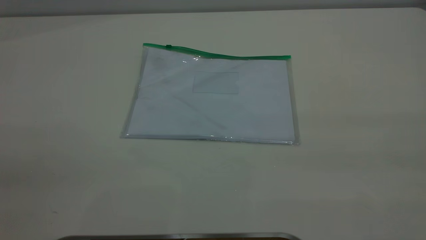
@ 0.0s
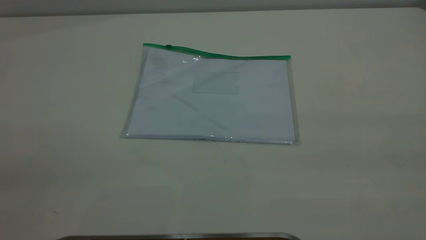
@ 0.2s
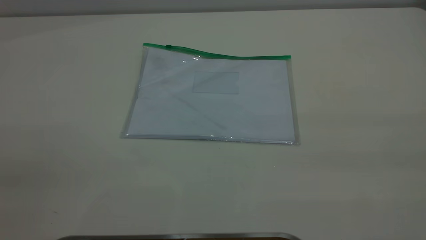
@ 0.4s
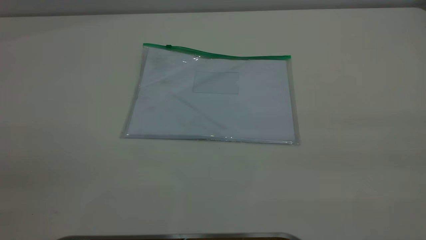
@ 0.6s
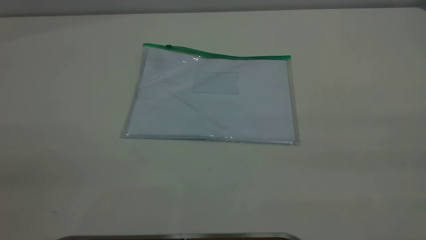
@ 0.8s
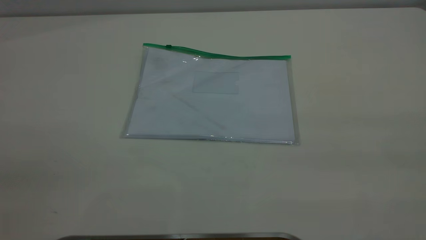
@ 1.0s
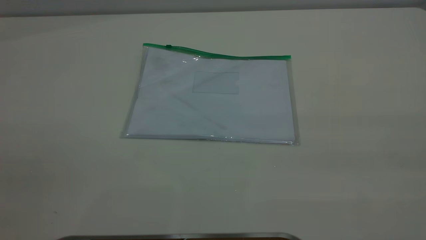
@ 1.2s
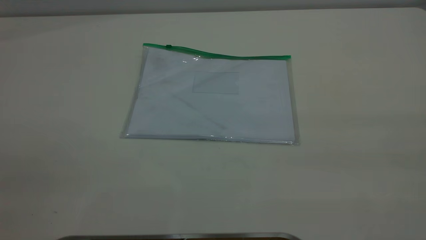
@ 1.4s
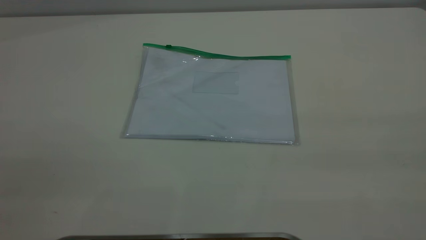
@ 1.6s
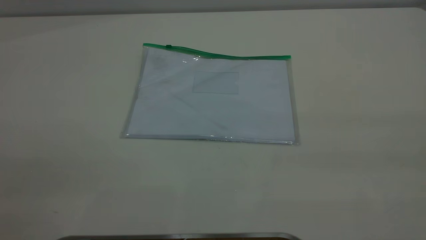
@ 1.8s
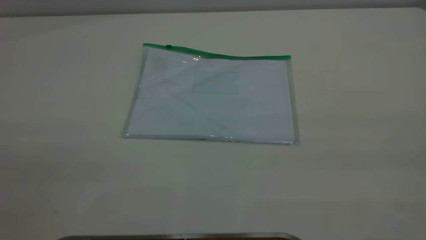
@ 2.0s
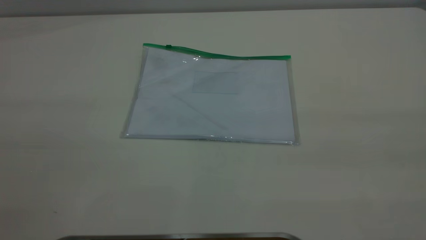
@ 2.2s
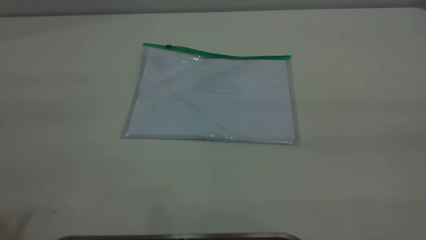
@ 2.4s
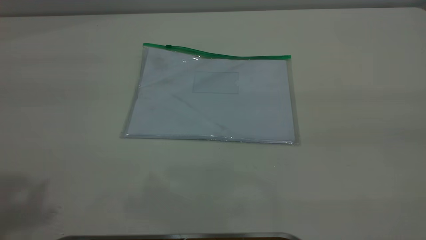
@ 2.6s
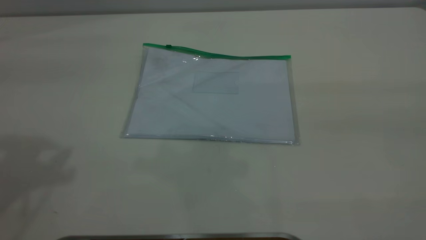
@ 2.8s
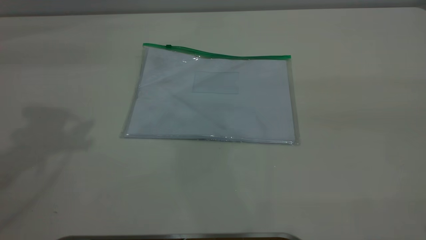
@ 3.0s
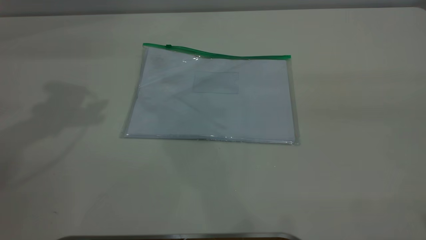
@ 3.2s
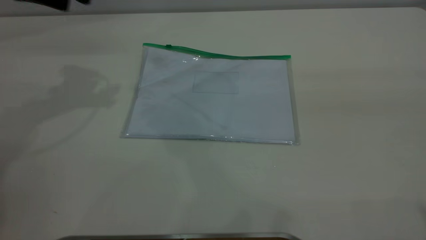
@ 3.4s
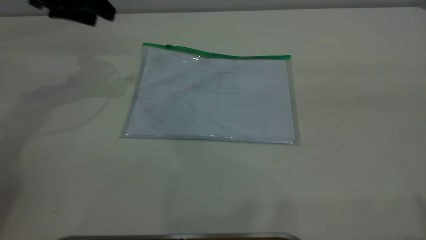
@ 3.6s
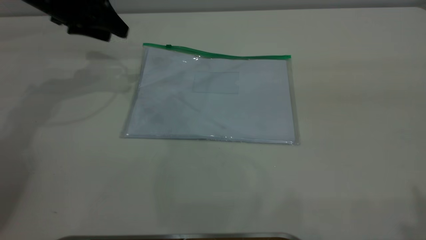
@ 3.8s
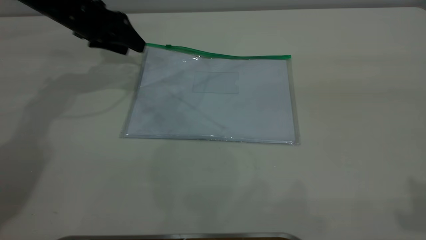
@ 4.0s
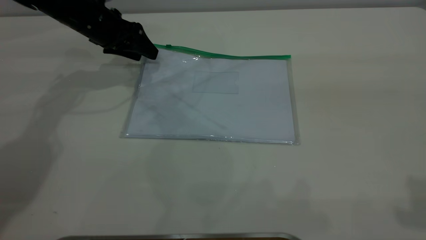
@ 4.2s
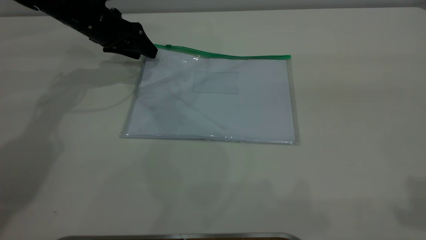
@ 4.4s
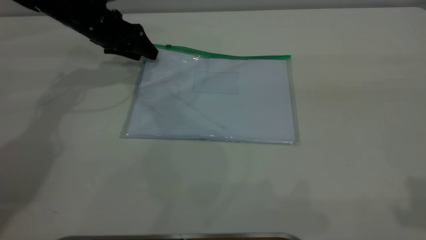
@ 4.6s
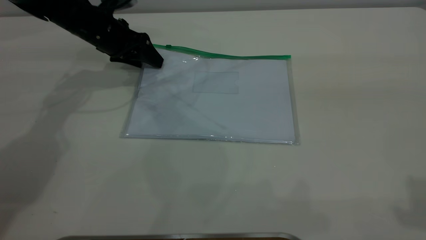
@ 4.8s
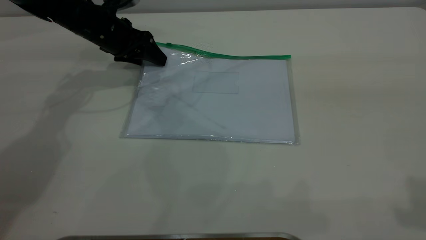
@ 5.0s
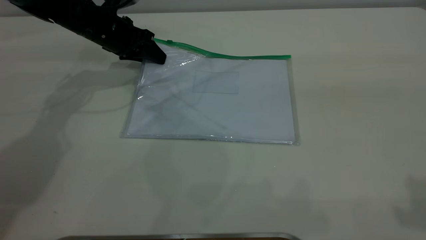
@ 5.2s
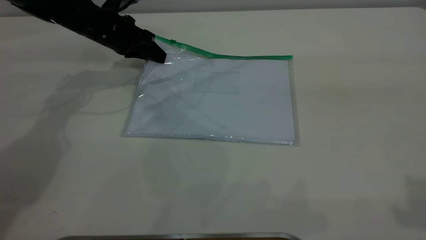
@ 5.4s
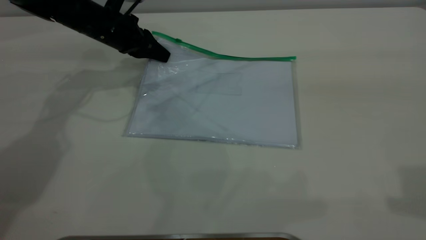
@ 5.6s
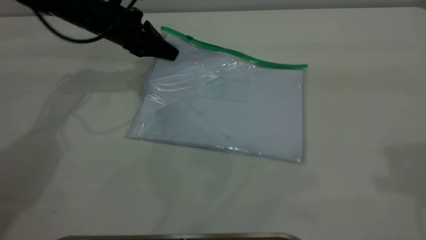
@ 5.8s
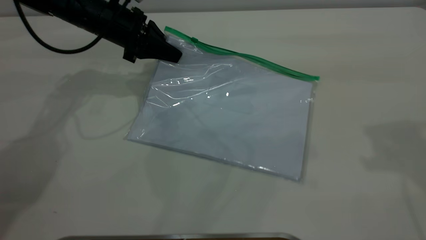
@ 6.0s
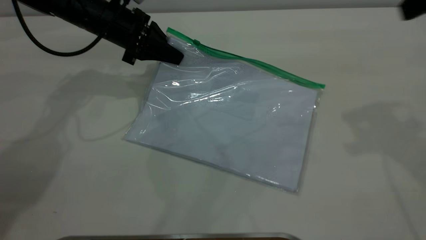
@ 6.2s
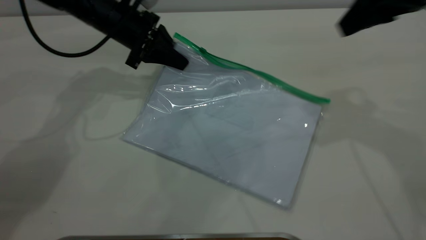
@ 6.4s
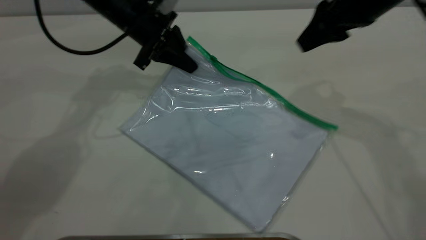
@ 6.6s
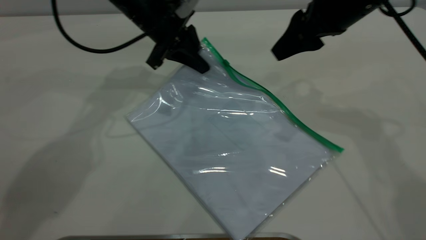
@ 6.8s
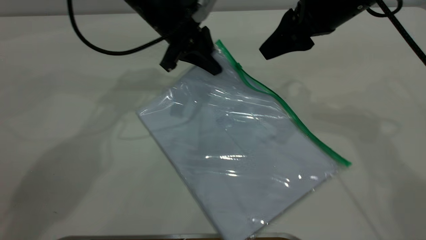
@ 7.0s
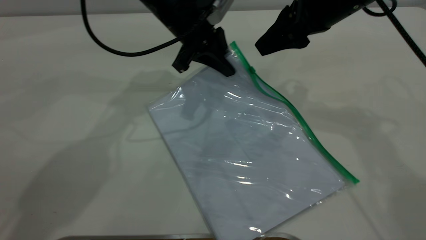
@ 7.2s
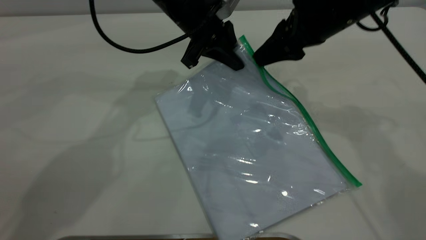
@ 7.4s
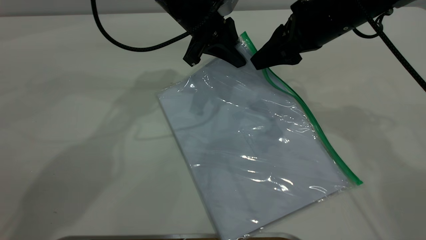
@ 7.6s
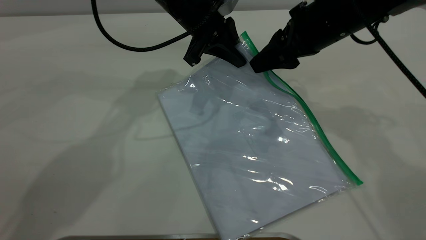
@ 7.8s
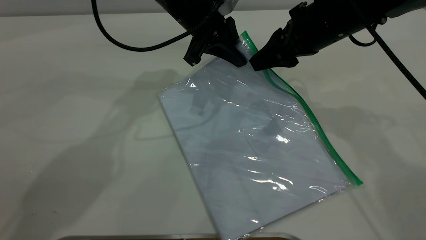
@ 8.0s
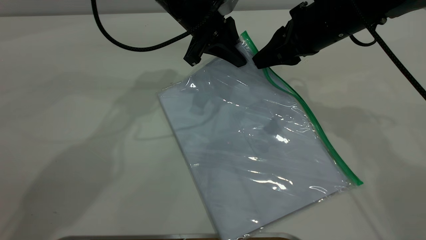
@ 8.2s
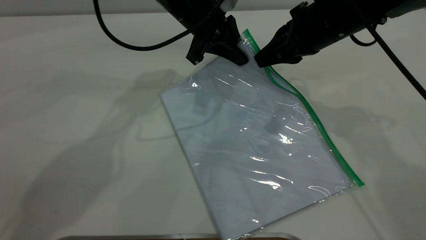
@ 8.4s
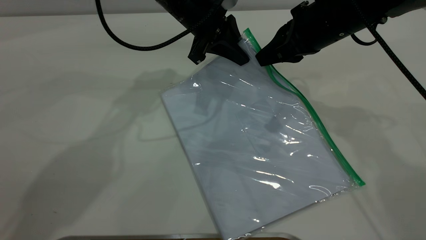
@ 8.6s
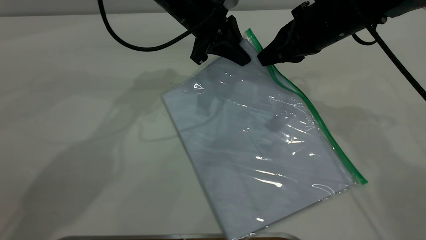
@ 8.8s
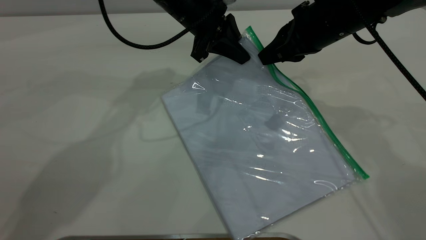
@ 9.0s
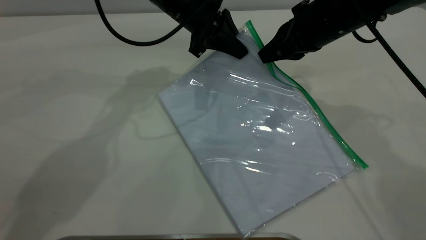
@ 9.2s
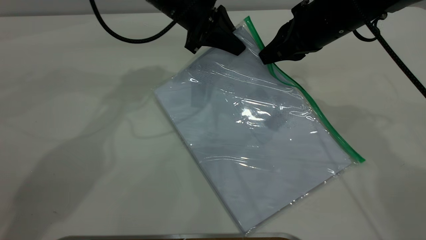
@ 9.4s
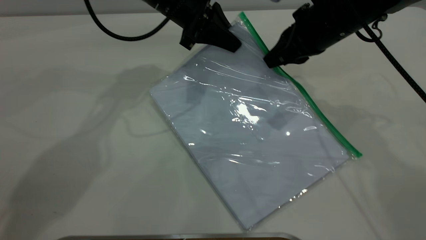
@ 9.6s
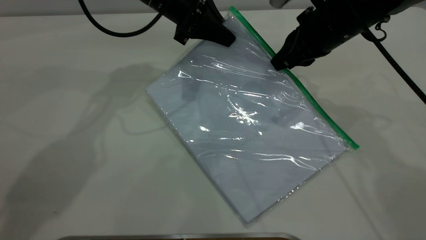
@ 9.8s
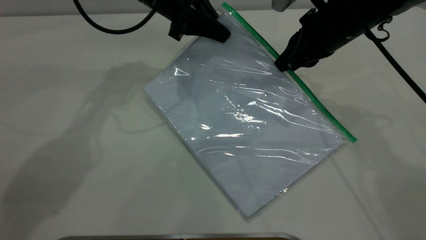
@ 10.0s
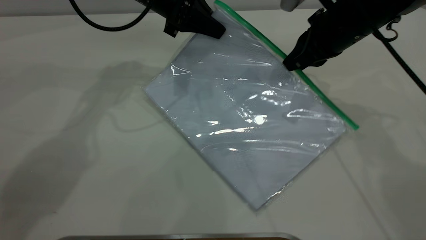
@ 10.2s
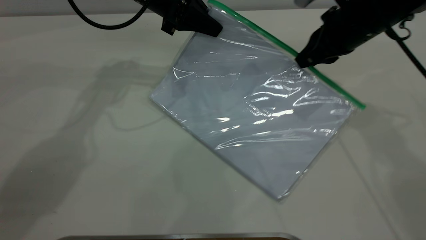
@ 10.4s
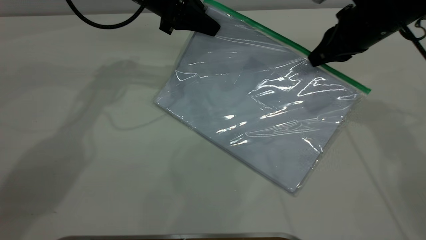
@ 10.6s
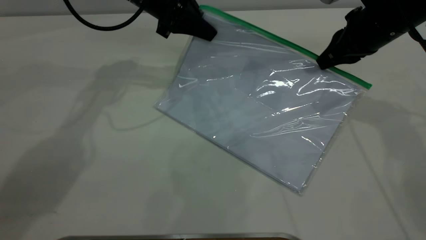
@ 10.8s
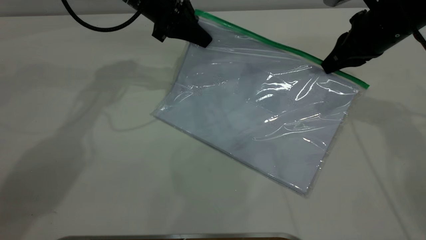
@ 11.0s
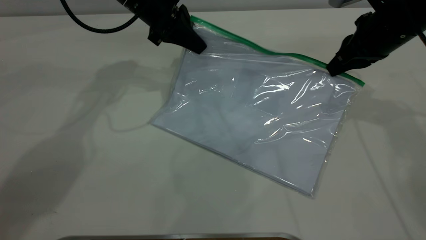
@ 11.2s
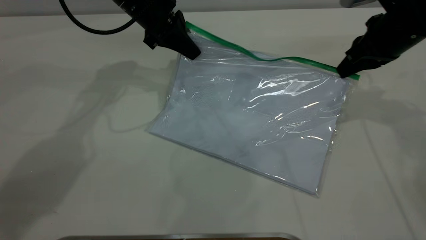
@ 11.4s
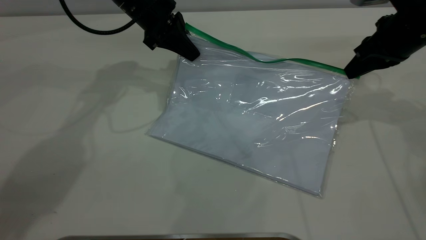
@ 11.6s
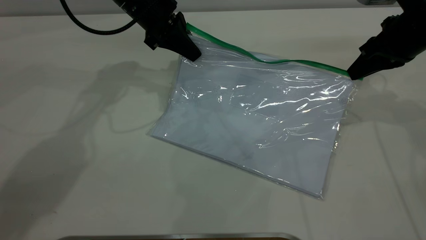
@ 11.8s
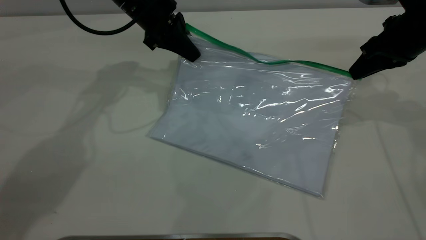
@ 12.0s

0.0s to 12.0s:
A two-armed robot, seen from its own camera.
Step, 0.0s to 5.8s: Pick up the transparent plastic bag with the left gripper.
3.0s to 4.4s: The left gripper is displaced downward and forward by approximately 30 cm.
4.4s to 6.0s: The left gripper changes place by about 5 cm, and closes its fingers. Meanwhile the right gripper goes roughly 10 cm forward.
6.0s to 7.6s: The right gripper shifts about 20 cm downward, to the left and forward; the left gripper is displaced to the right by about 15 cm.
7.6s to 9.0s: The right gripper closes up.
9.0s to 10.4s: The right gripper is displaced to the right by about 5 cm. The left gripper goes approximately 5 cm to the left.
10.4s to 12.0s: The right gripper goes some 10 cm to the right.

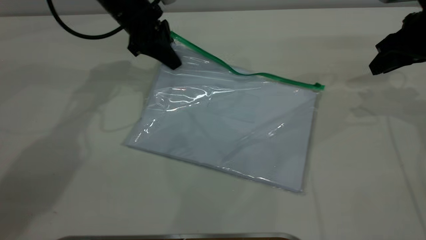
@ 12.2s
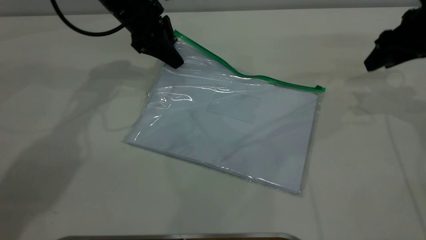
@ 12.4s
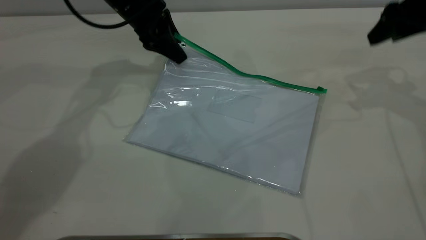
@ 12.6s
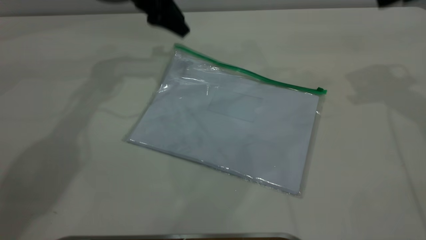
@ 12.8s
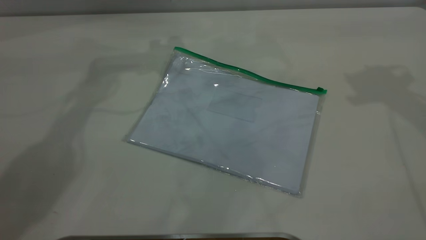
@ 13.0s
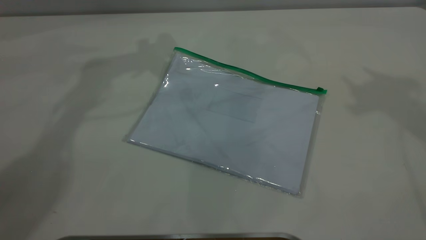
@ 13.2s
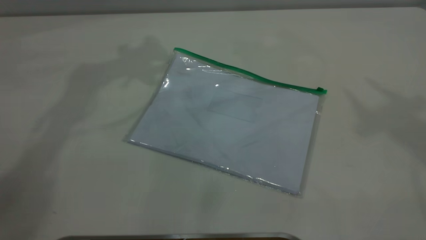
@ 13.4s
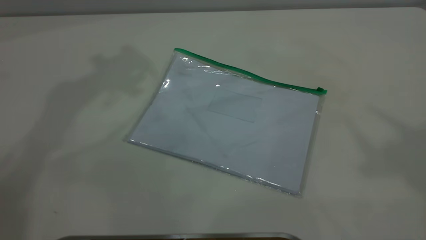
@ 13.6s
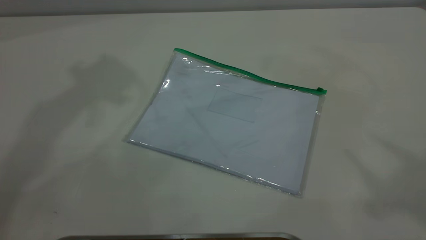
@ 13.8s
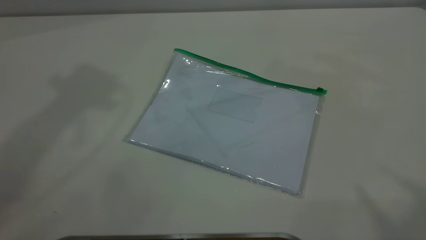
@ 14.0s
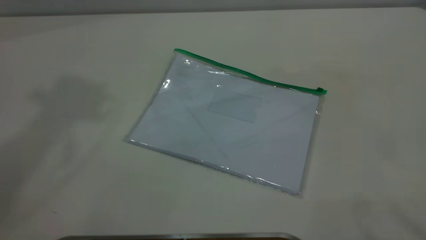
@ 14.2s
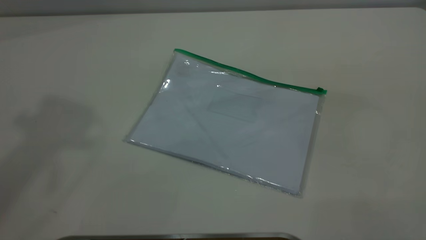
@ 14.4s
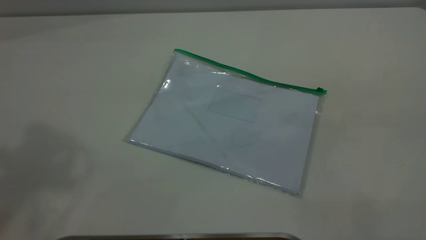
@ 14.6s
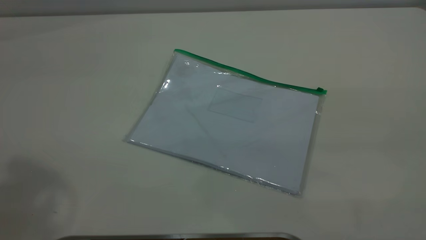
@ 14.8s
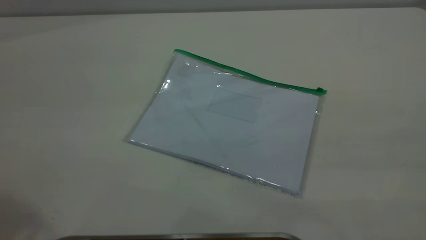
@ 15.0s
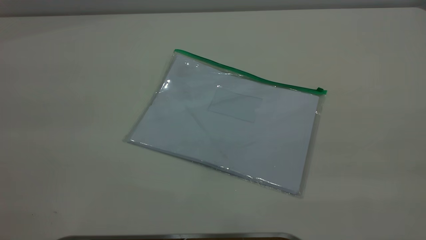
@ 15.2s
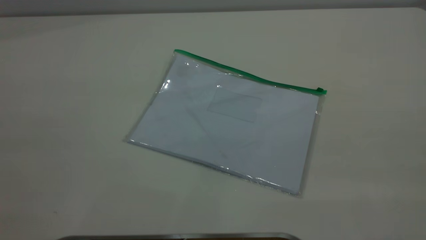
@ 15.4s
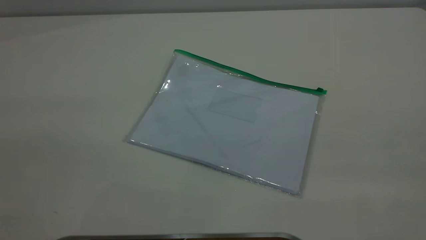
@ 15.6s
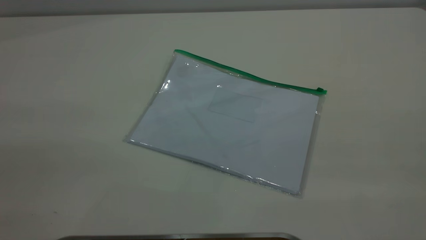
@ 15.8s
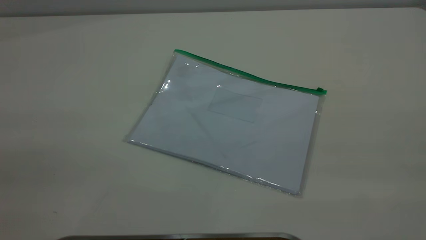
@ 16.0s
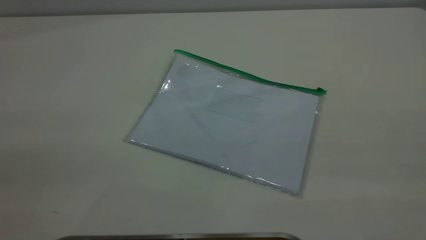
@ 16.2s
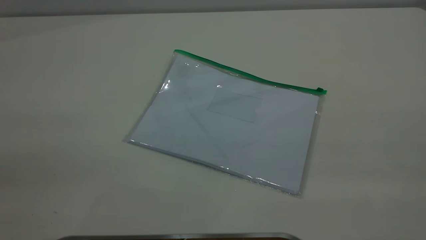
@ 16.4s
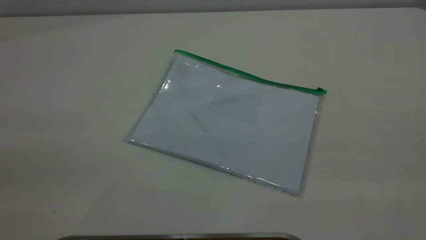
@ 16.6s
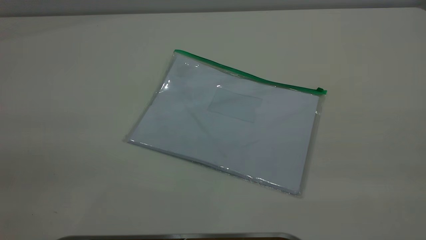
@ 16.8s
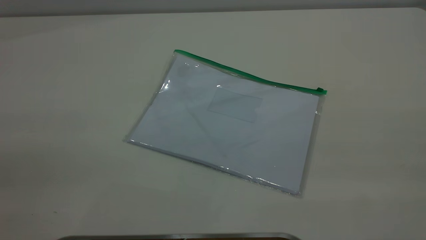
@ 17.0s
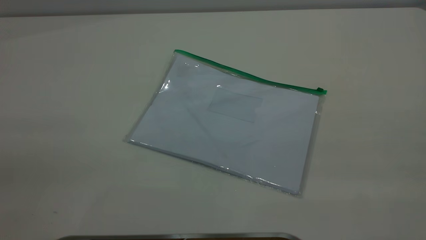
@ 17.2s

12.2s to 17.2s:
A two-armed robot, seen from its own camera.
Step, 12.2s to 12.8s: Place the transparent plastic bag.
12.2s to 13.8s: The left gripper travels upward by approximately 40 cm, and opens up. Meanwhile the right gripper heads upward and backward, covering about 40 cm, and opens up.
